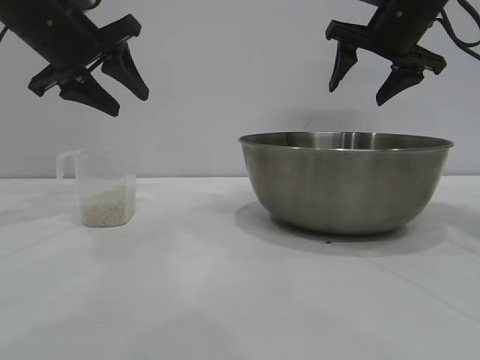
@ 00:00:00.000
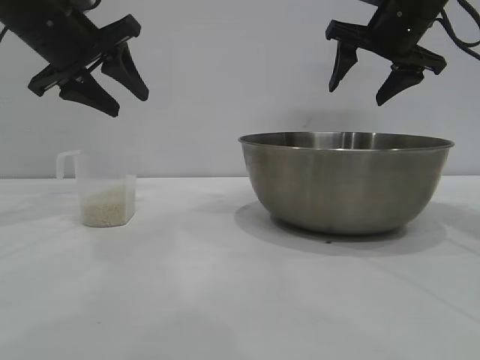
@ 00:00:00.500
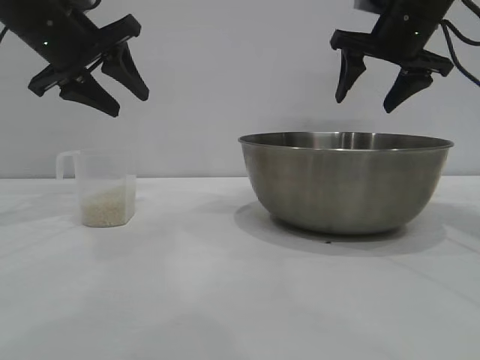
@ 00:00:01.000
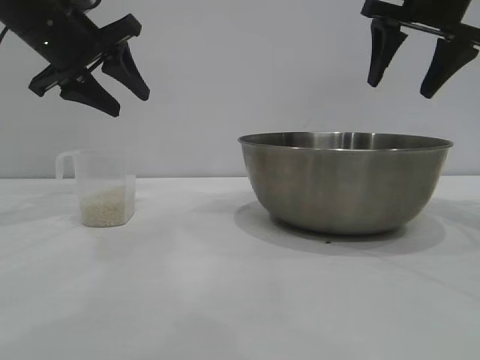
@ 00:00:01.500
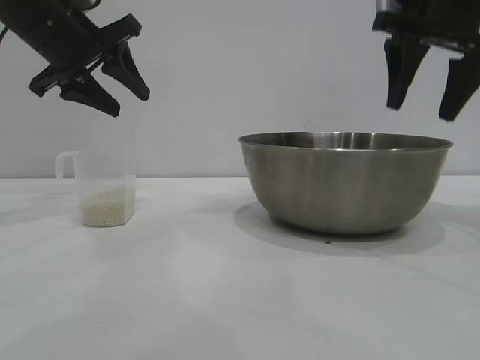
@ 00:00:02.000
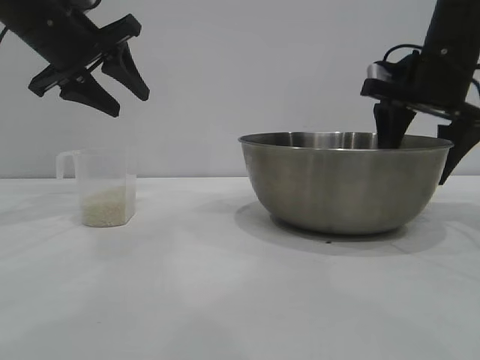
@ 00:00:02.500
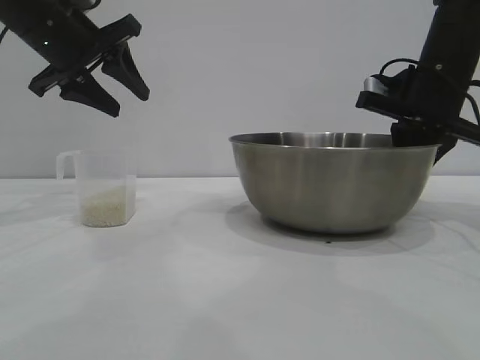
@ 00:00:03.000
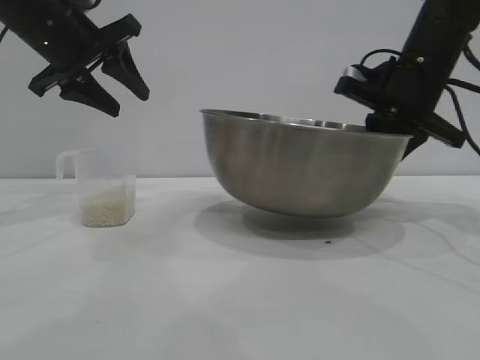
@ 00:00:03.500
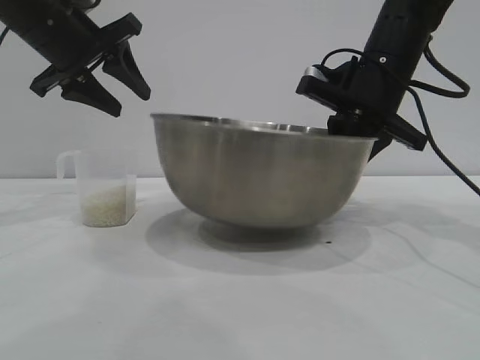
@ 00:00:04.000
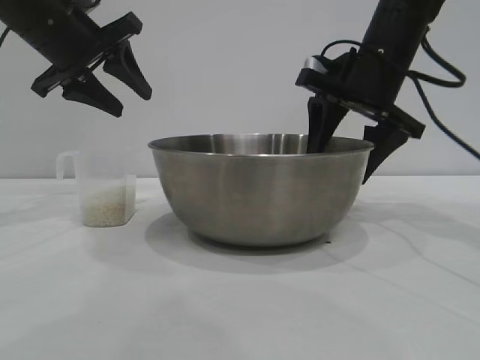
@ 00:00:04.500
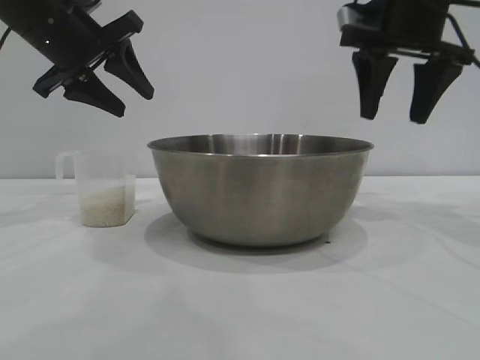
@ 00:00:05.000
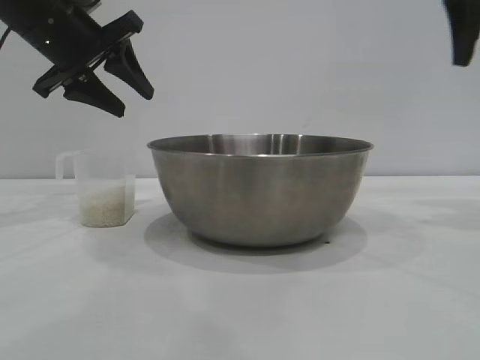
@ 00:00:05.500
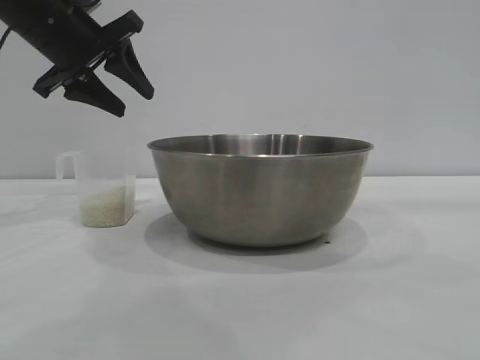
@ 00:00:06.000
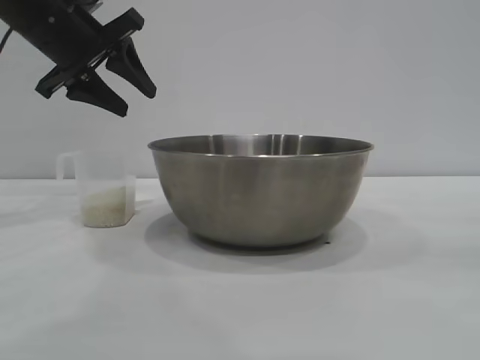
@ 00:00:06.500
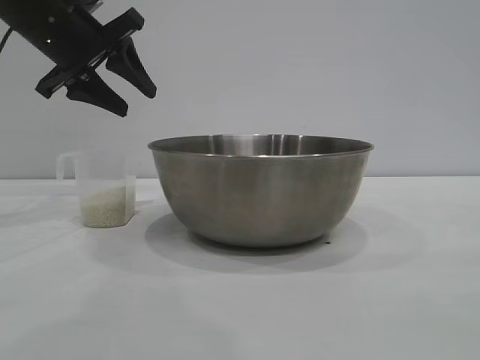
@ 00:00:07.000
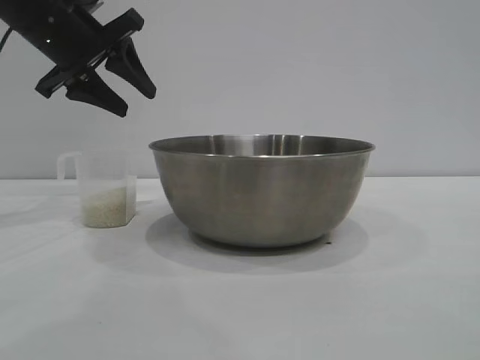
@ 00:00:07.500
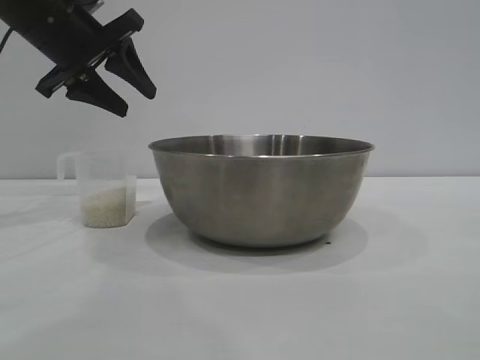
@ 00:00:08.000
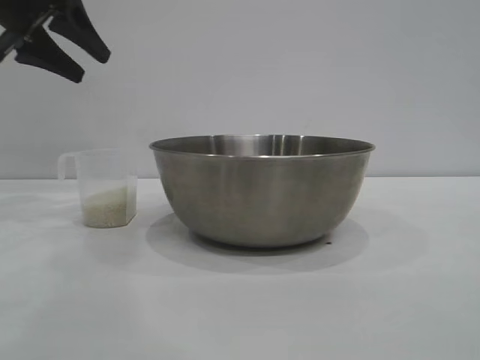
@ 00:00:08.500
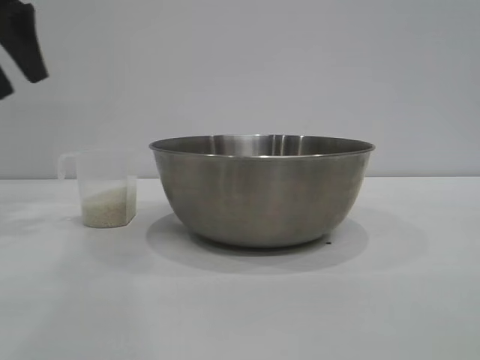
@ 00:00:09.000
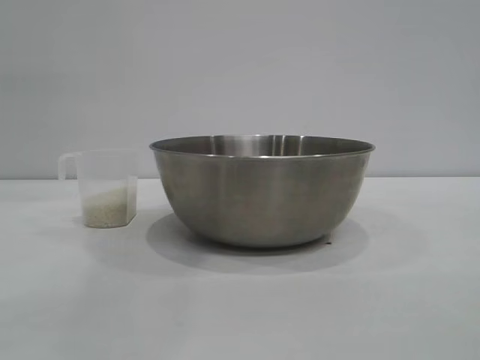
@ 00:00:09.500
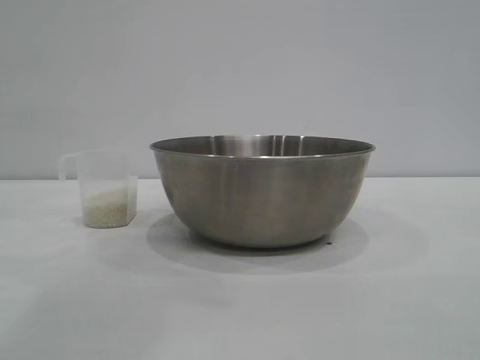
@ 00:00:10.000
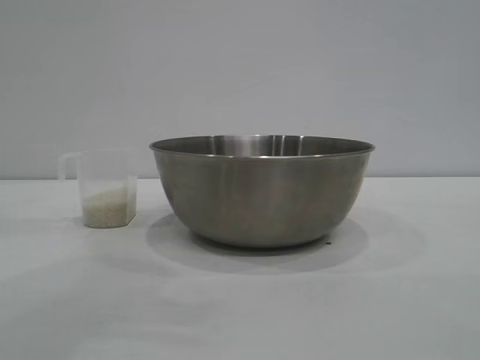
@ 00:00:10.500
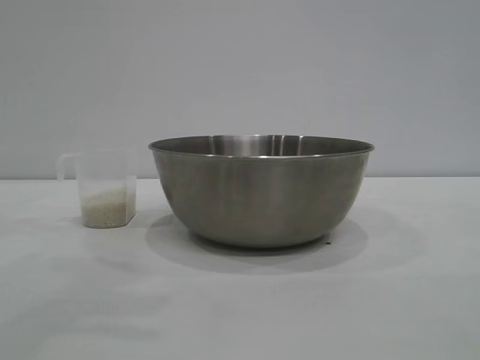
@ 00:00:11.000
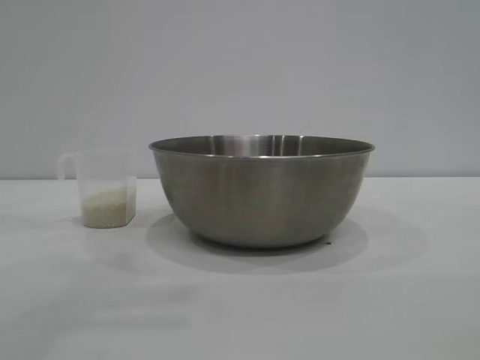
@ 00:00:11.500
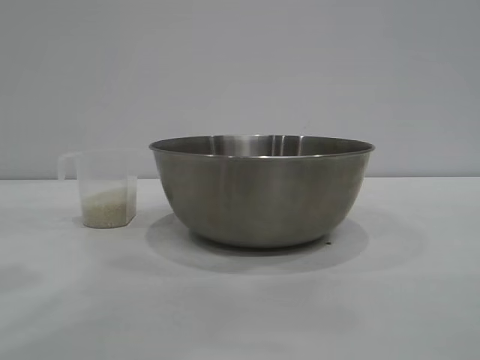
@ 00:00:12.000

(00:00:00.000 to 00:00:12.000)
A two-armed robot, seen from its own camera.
Task of the whole recording: the right gripper grasp the rice container and place it in the center of the table, the left gripper grasp the rice scoop and pour the rice into the rice container.
Step, 00:00:00.000 - 00:00:04.500: Move the bowl to the center of view with the right gripper.

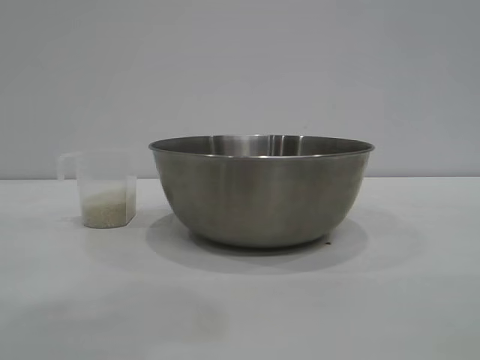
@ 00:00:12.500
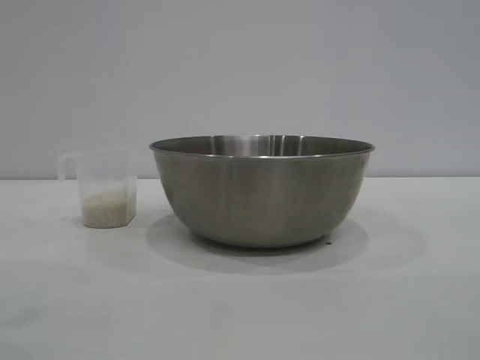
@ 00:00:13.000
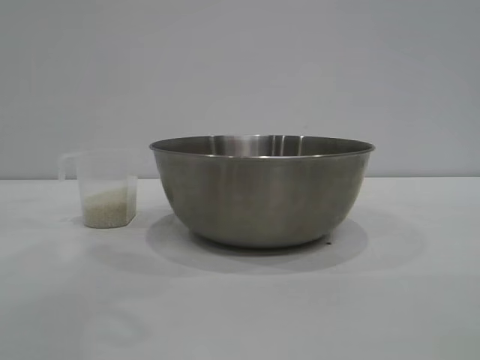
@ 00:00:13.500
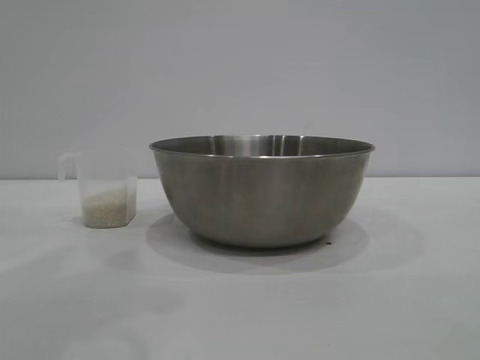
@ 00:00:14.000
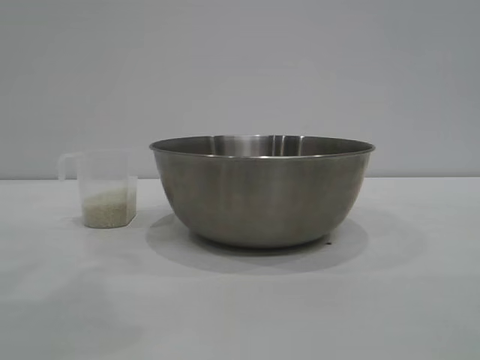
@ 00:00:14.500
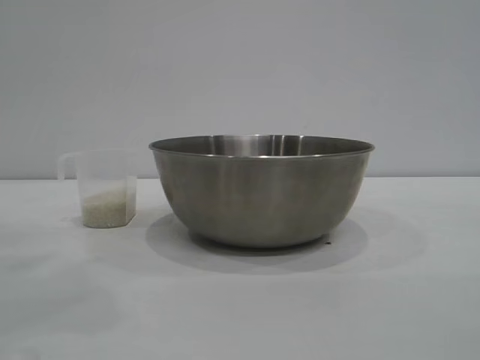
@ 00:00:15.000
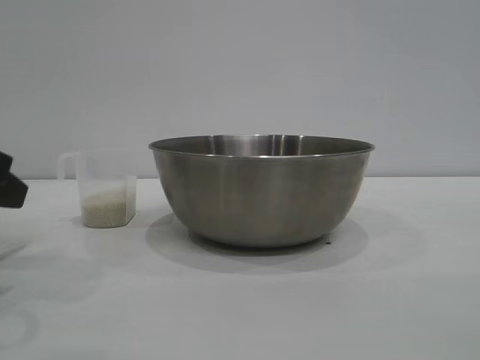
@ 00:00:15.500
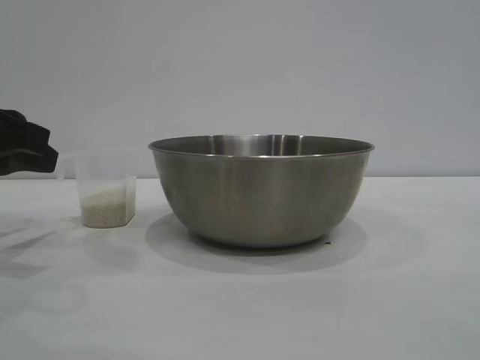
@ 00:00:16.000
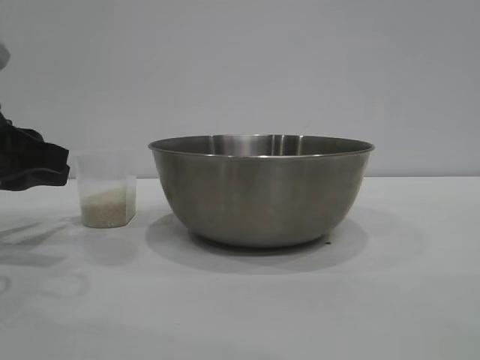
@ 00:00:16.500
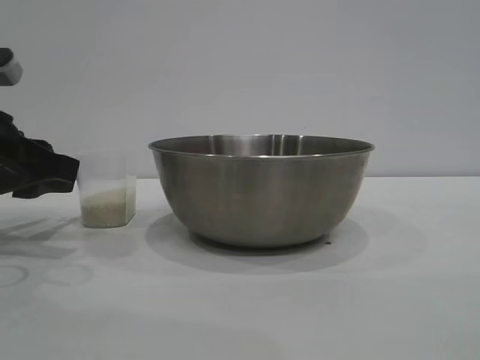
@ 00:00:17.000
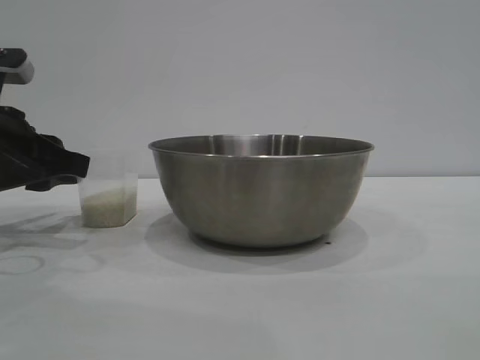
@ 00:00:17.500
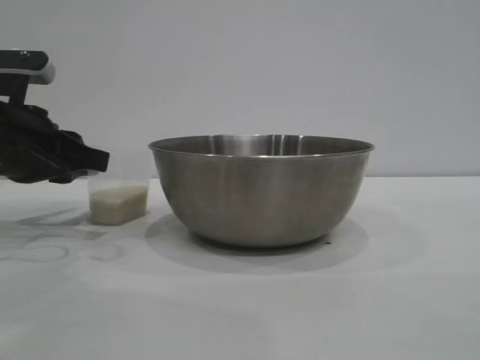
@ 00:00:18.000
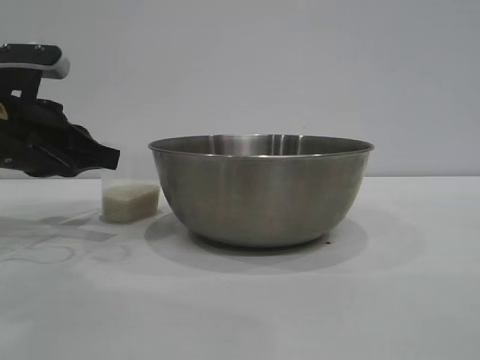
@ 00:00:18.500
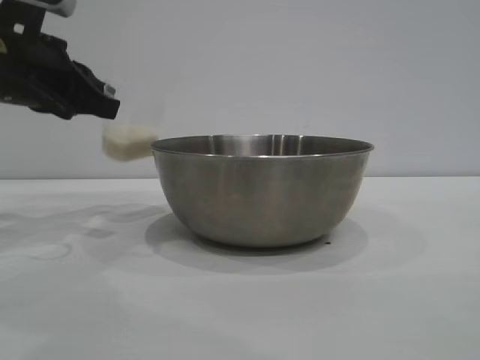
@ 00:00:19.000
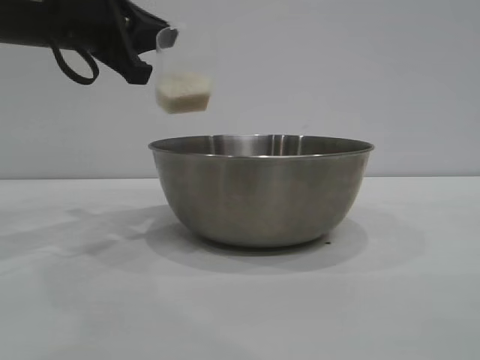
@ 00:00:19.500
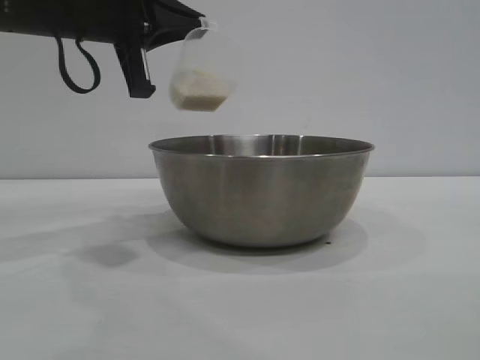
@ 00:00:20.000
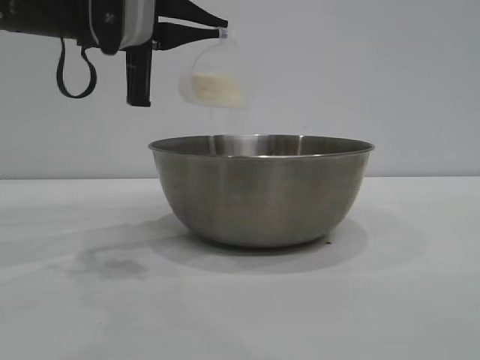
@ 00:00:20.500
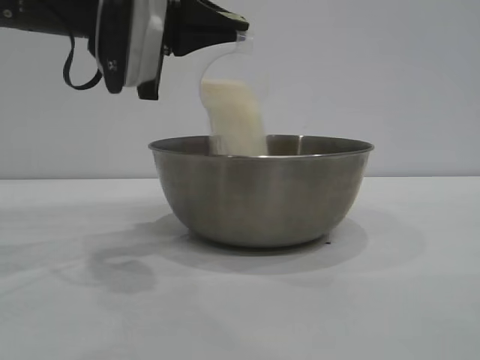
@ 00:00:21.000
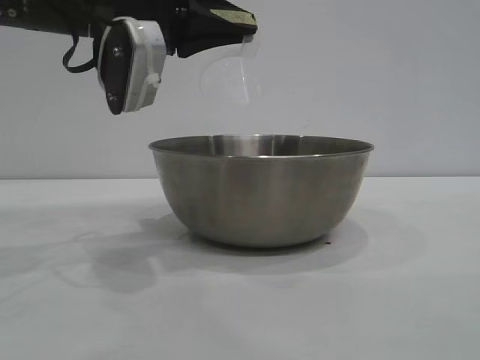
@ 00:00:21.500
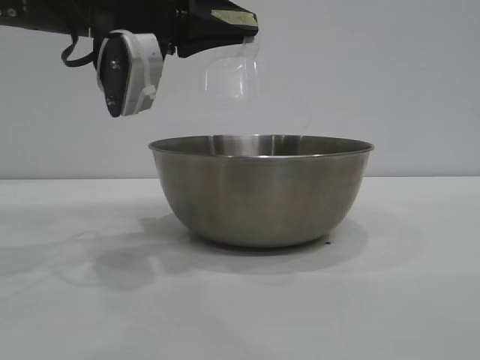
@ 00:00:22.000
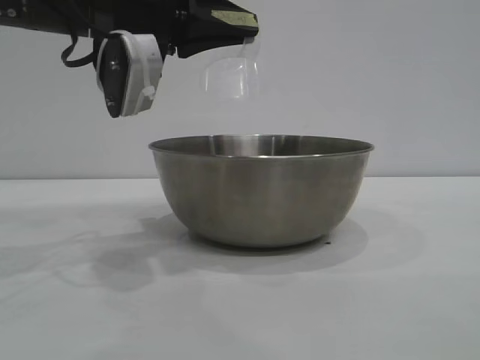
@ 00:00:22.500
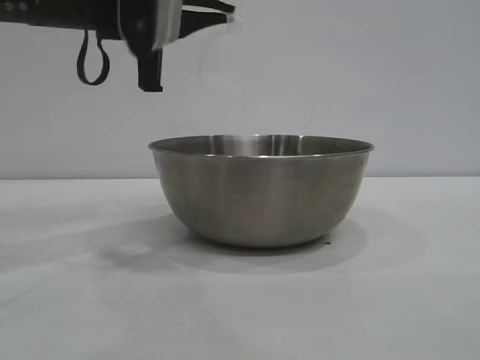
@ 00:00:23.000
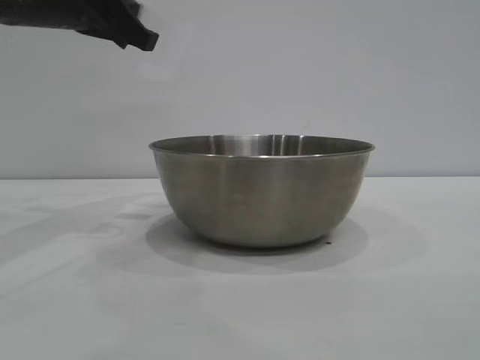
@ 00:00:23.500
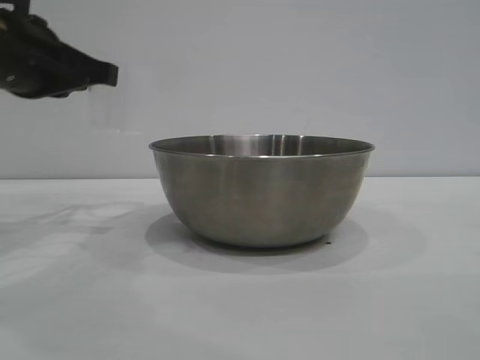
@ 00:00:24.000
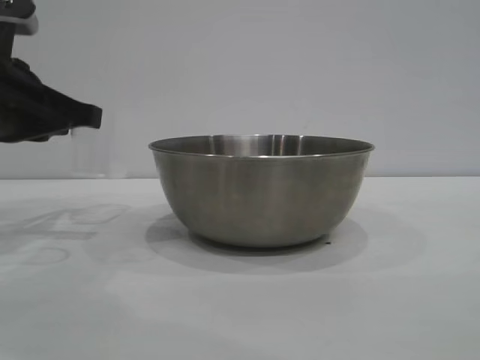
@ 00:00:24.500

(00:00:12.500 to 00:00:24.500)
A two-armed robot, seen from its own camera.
Task of the whole recording: the right gripper grasp the rice container and place it in the center of the table, the left gripper grasp the rice scoop and pour the rice into the rice container.
Step, 00:00:12.500 - 00:00:18.500: Pick up the cup with rice in it with the left gripper.
Step, 00:00:19.000 - 00:00:23.000: Pour the rice from the cup into the bowl with the left gripper.
